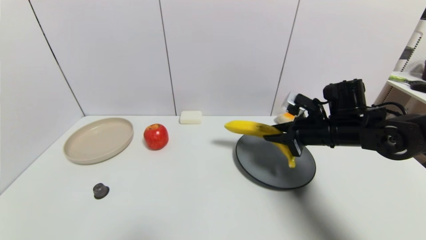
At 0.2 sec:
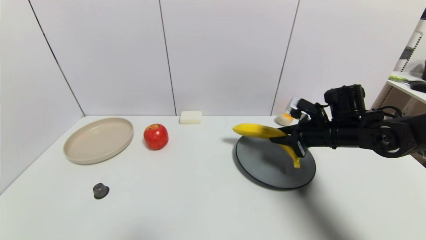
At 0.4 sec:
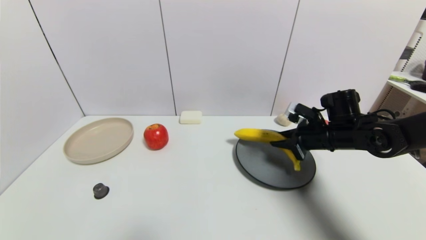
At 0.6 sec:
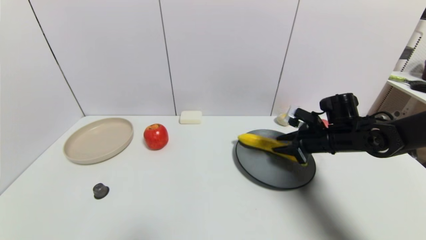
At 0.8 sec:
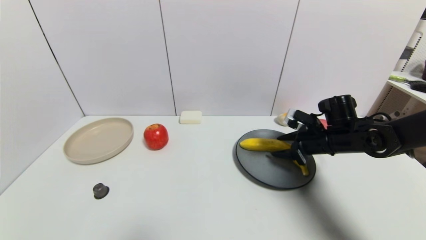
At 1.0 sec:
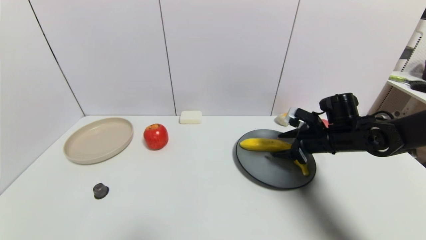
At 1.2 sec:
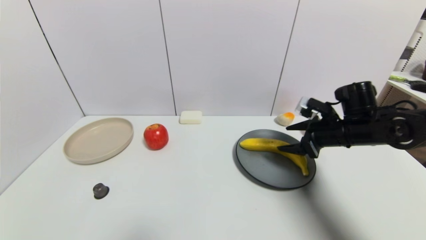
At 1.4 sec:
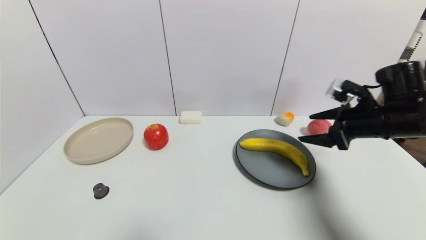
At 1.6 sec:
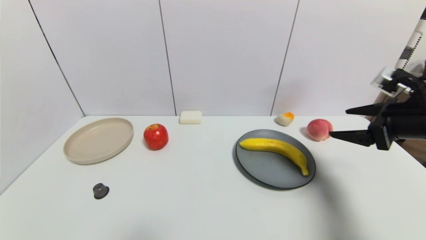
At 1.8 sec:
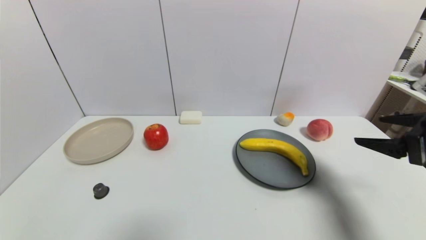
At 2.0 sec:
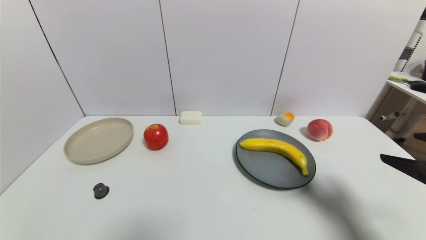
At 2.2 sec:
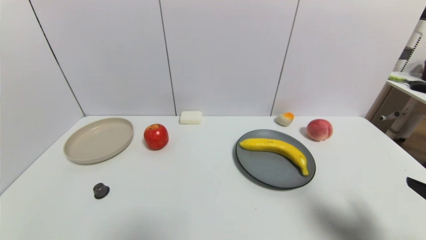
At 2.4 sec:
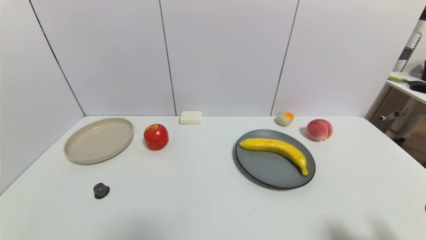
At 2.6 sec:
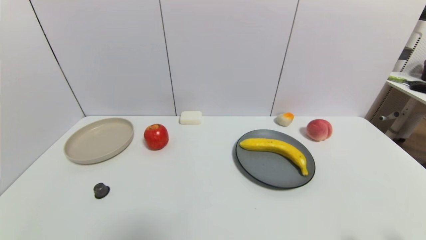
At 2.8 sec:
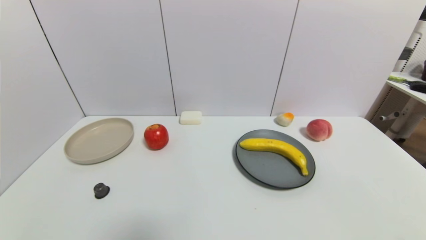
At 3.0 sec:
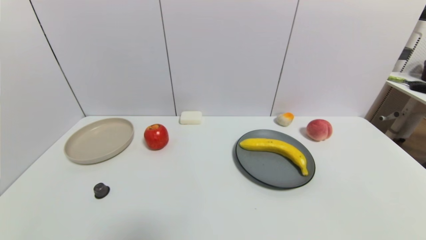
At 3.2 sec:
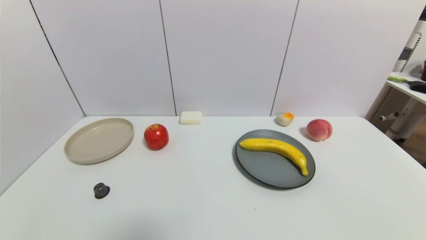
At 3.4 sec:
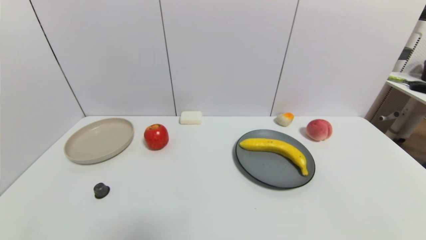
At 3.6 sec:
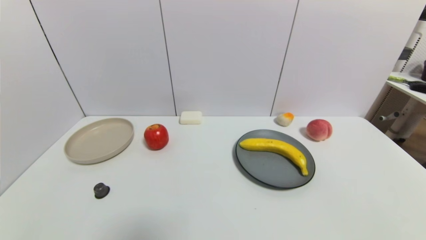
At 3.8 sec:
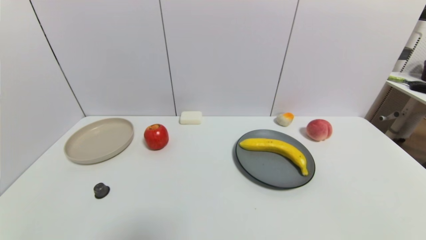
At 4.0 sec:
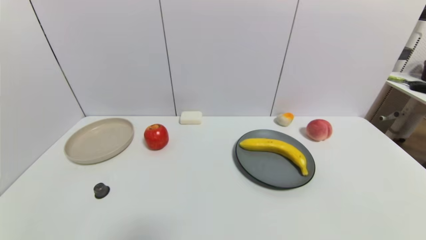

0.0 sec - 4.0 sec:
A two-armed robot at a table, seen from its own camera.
Task of the whole recording: use a gripper to pick the target object and place on the gray plate.
Step, 0.0 sec - 1.2 sec: Place the banana on the gray plate with the right gripper.
0.0 sec - 1.4 sec: The right gripper is displaced to the right and upward by approximately 10 cm, and opens its fingers.
1.4 sec - 2.6 sec: The right gripper goes some 30 cm backward.

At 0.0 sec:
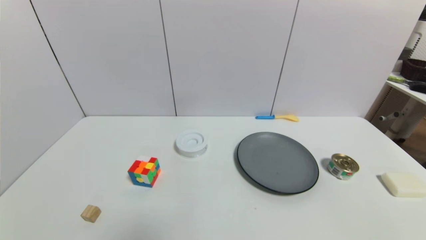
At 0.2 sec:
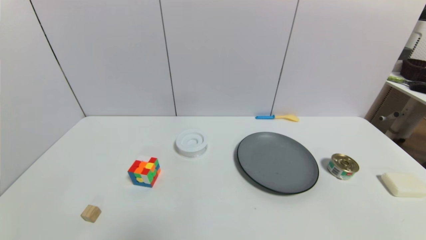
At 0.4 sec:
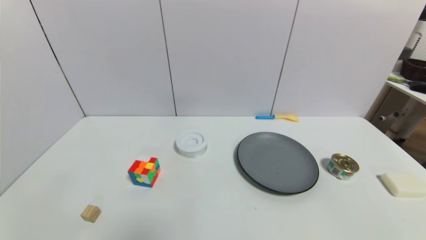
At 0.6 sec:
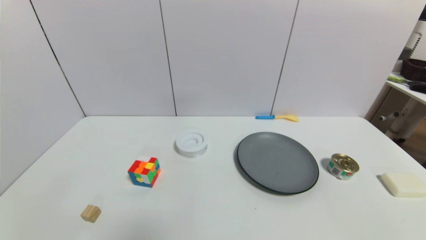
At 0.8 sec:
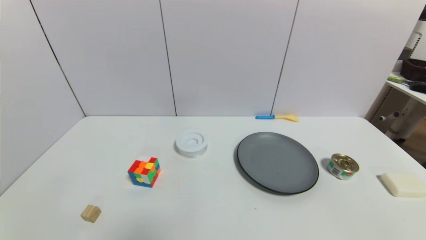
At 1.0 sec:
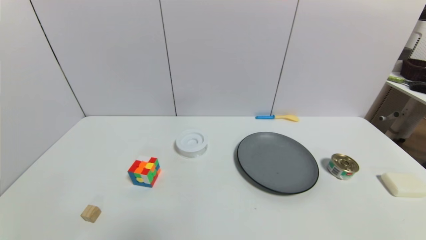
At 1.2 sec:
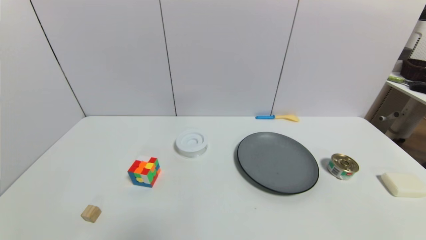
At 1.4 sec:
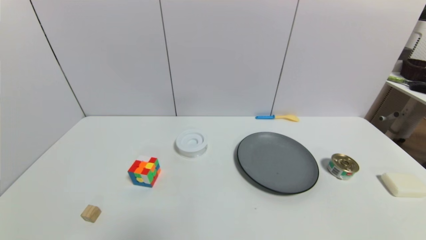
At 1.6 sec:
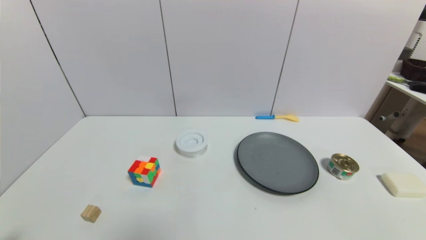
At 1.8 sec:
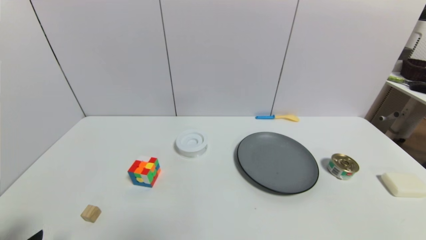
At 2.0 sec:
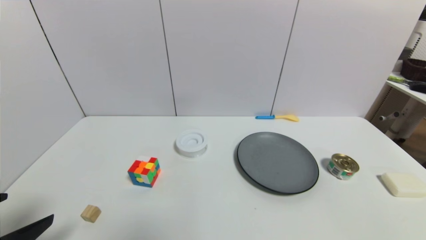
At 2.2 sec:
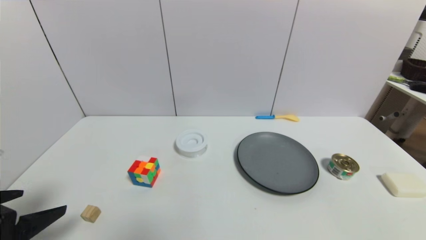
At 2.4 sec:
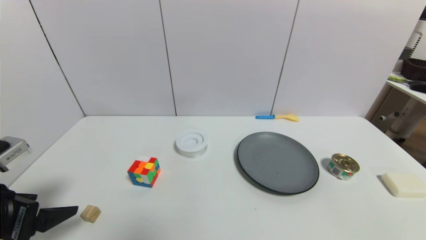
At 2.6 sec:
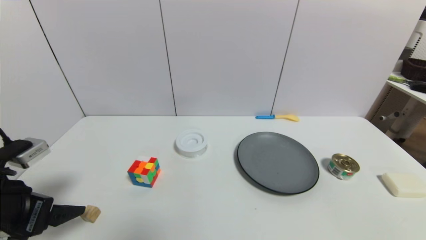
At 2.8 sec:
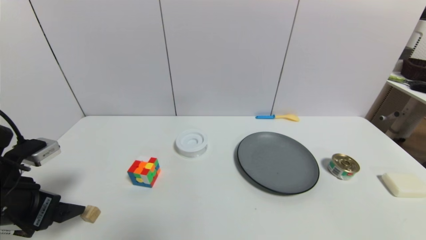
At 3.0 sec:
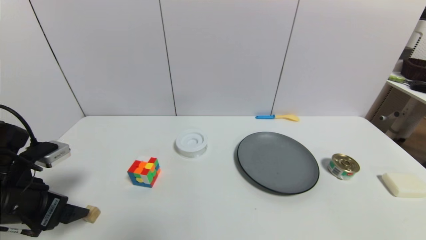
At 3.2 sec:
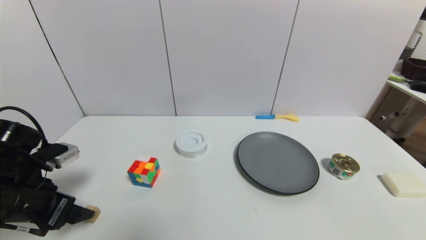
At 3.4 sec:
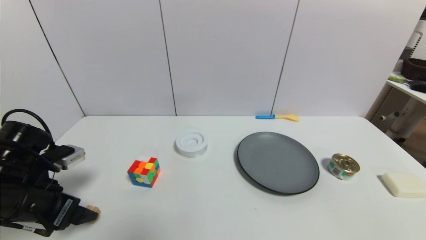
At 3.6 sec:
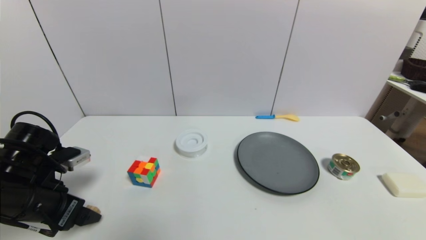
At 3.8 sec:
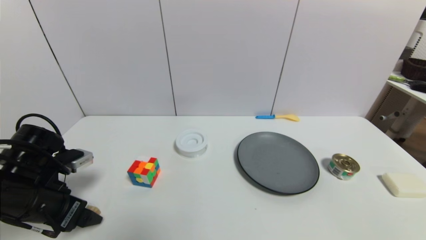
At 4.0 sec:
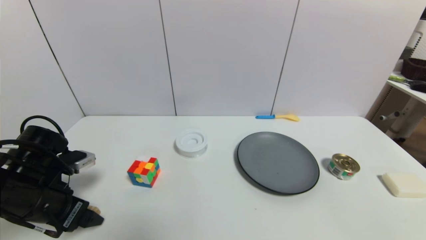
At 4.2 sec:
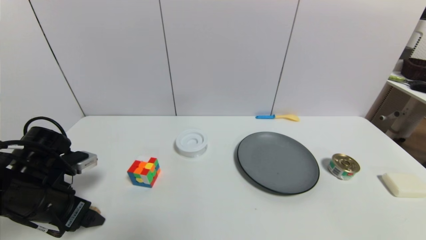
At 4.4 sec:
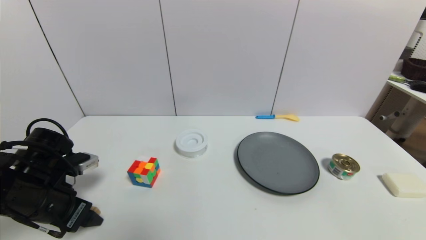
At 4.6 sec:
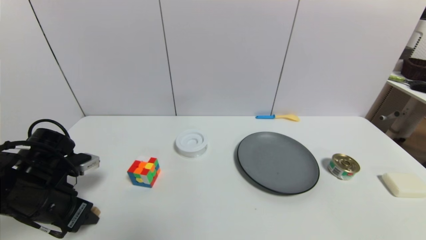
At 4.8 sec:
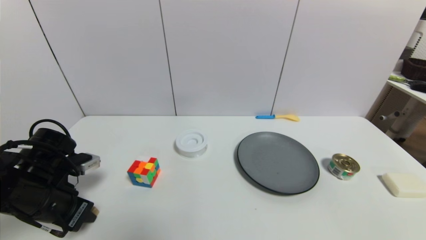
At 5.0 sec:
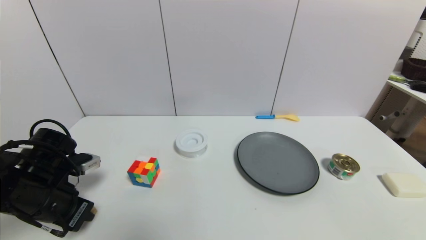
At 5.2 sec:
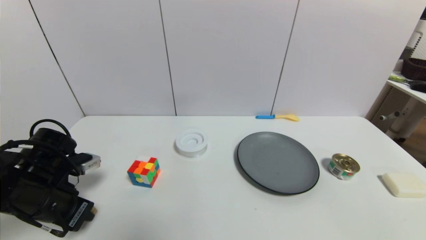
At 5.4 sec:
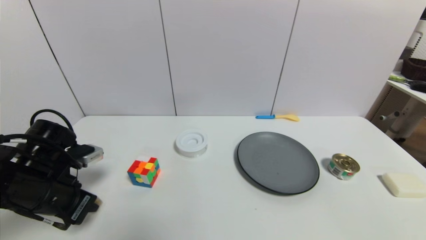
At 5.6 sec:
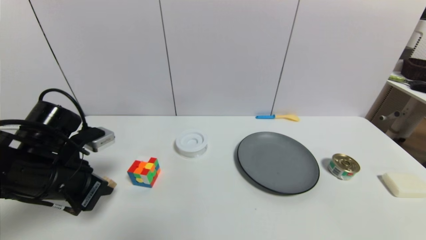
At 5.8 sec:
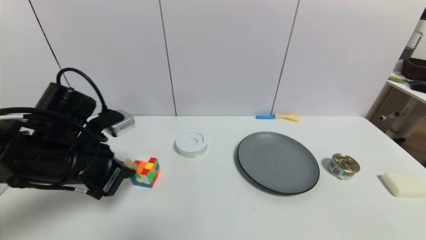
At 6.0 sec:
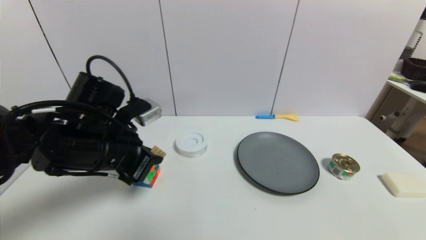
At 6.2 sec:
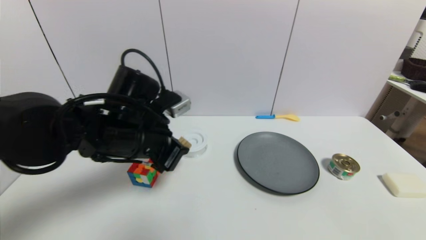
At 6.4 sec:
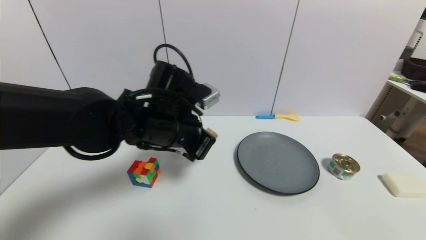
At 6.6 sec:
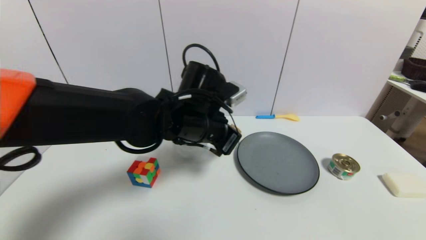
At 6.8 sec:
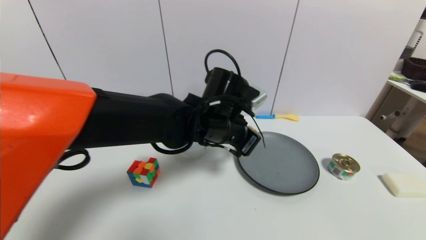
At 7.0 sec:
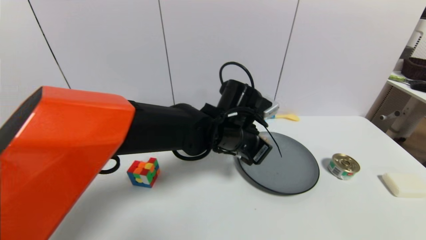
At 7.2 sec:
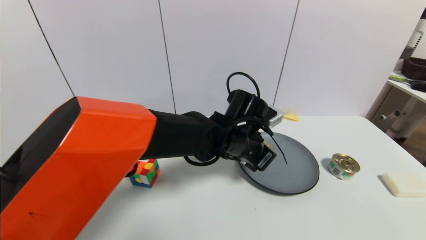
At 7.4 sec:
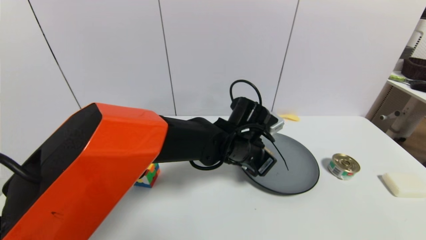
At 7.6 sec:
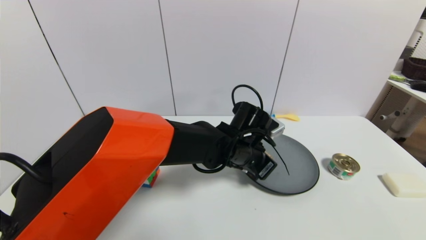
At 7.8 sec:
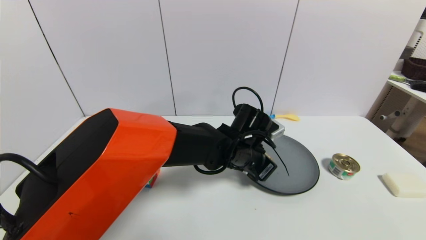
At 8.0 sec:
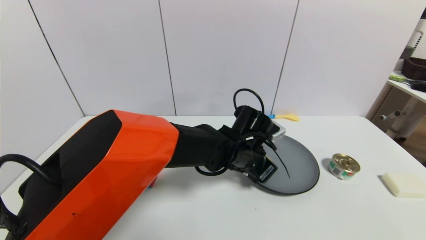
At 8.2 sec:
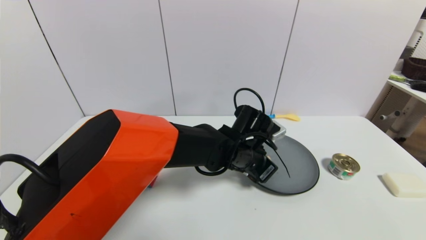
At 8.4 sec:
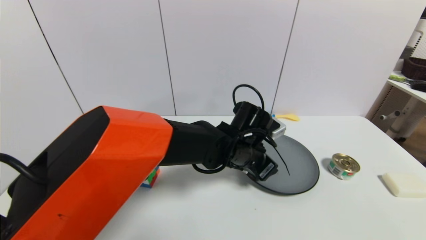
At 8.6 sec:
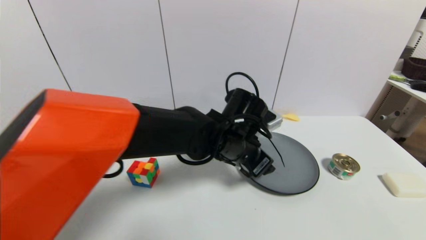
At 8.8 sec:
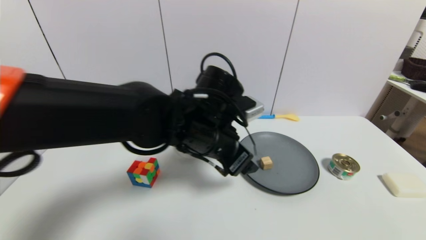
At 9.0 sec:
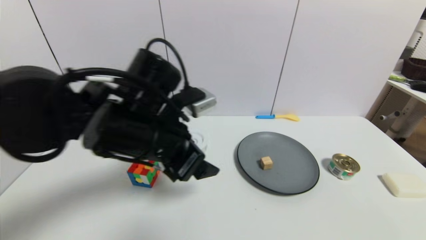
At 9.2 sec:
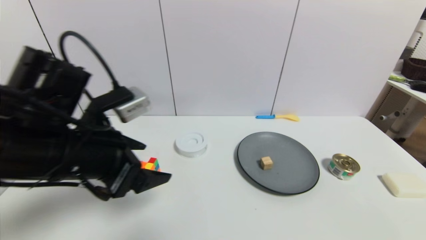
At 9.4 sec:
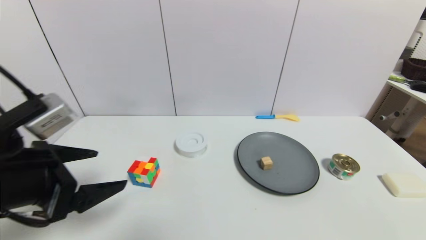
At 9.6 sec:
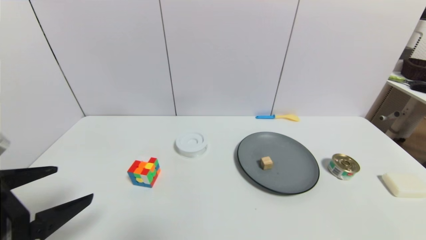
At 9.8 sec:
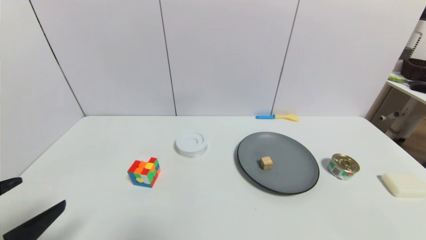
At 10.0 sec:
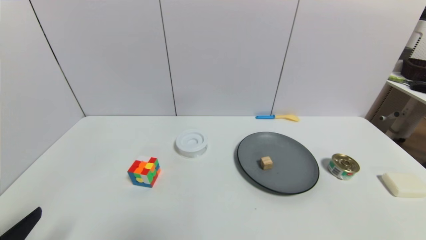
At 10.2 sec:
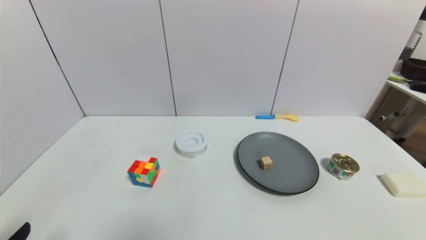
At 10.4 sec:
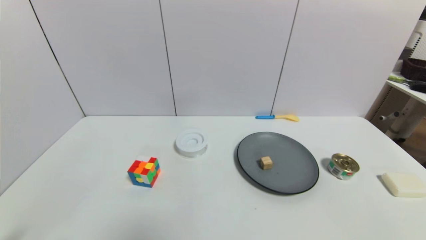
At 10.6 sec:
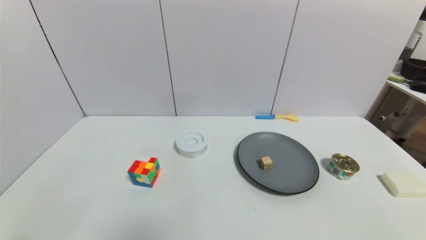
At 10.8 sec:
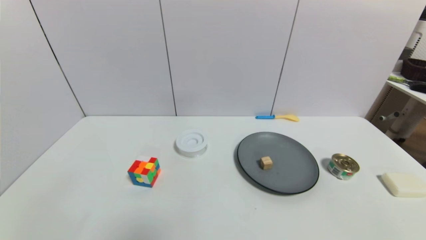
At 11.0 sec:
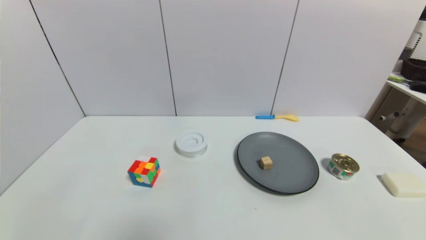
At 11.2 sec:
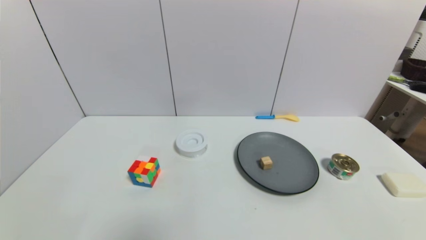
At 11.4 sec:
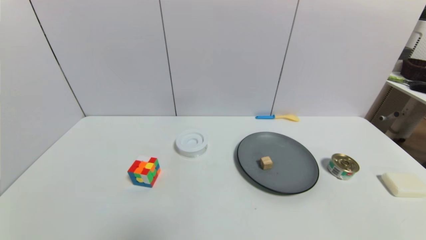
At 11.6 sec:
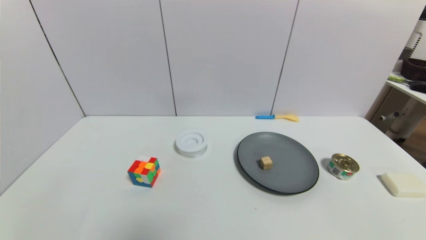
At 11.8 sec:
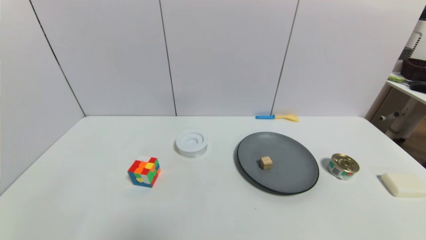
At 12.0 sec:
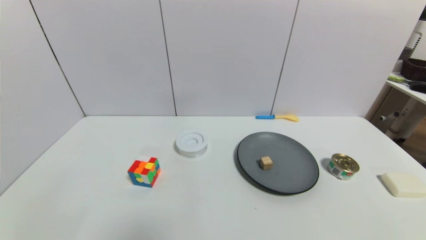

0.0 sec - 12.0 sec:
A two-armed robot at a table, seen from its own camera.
Task of the whole recording: use a gripper to pick the target object and place on the gray plate.
Step, 0.0 sec - 5.0 sec: Grasp the square wooden block with the left gripper.
Step, 5.2 sec - 8.4 sec: Place the square wooden block on the gray plate with the left gripper.
1.6 sec - 3.0 sec: The left gripper goes roughly 15 cm forward.
3.0 sec - 4.4 sec: The grippers stay close to where they were, moving slightly.
4.4 sec - 6.0 sec: The left gripper is displaced to the right and upward by some 15 cm, and closes its fingers.
6.0 sec - 7.6 sec: The left gripper heads to the right, covering some 25 cm.
7.6 sec - 9.0 sec: The left gripper shifts approximately 20 cm to the left, upward and backward, and opens up.
9.0 sec - 10.4 sec: The left gripper travels backward, to the left and downward by approximately 35 cm.
